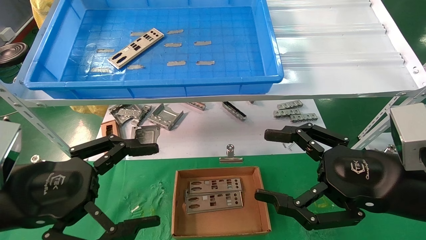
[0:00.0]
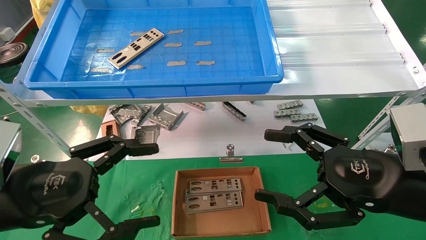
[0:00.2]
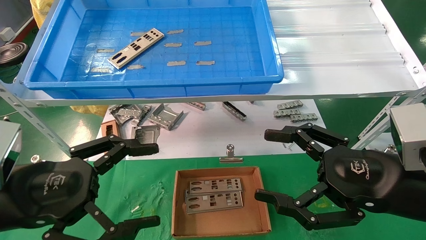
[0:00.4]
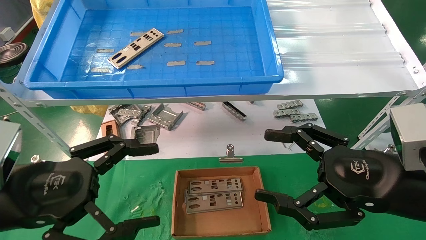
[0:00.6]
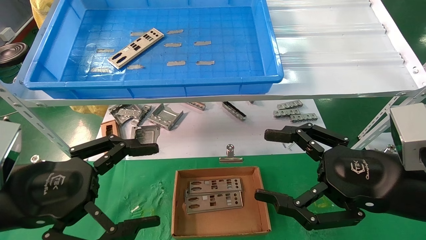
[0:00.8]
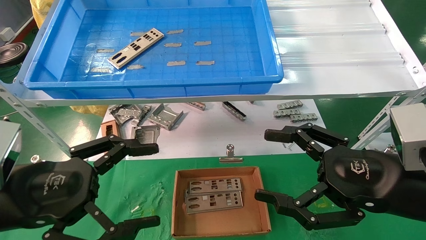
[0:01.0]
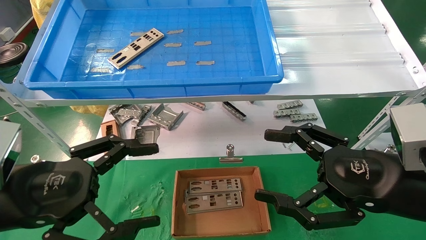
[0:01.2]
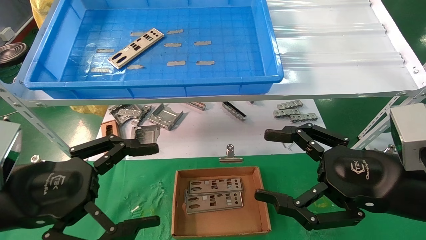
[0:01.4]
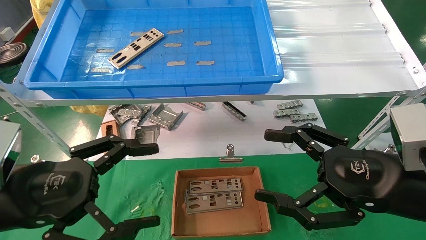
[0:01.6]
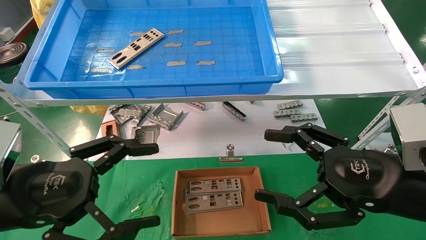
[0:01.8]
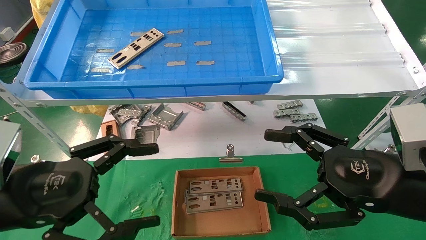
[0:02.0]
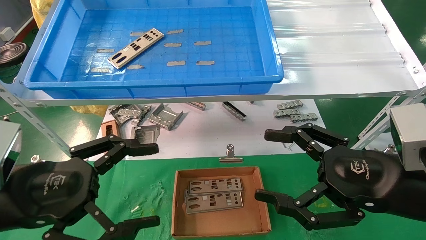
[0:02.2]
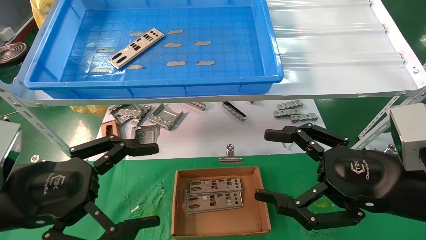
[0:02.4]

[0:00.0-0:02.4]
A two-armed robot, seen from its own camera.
Task of the whole recording: pick up the parts on the tray and put them in the cardboard box.
0:00.0 to 0:02.4: The two grippers keep their place.
